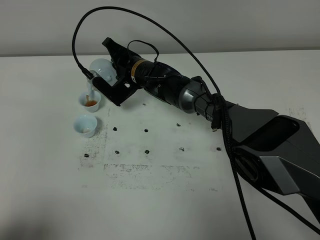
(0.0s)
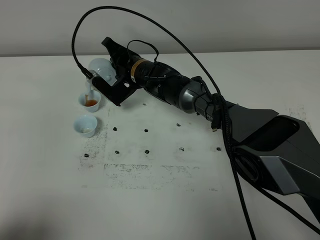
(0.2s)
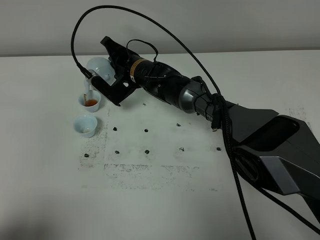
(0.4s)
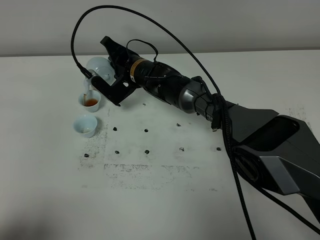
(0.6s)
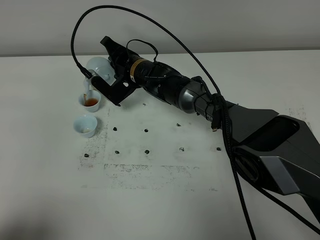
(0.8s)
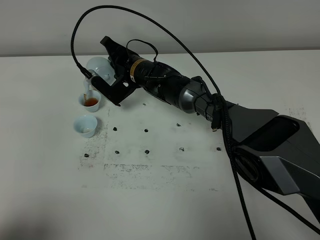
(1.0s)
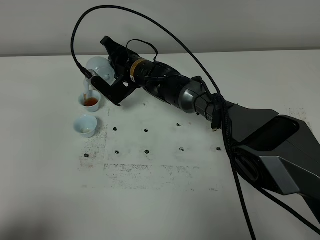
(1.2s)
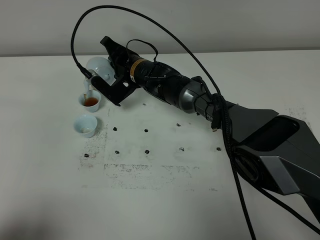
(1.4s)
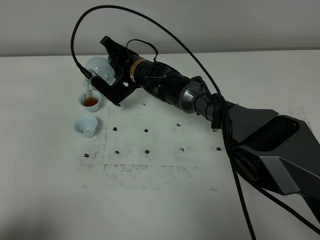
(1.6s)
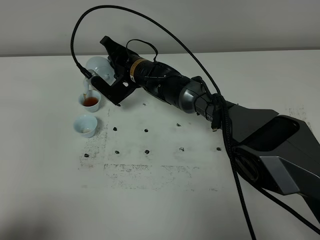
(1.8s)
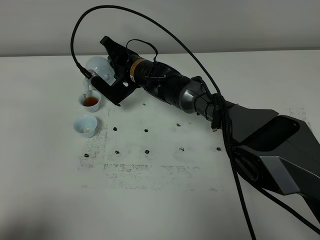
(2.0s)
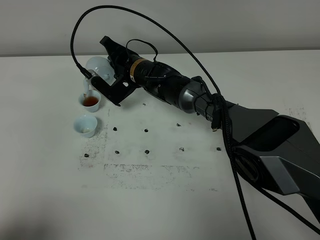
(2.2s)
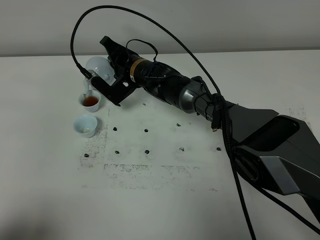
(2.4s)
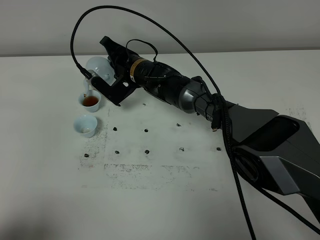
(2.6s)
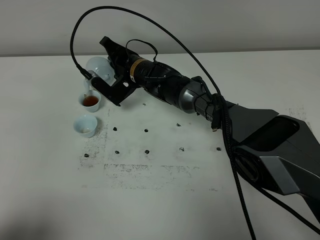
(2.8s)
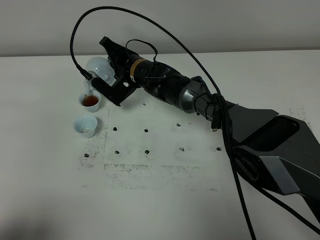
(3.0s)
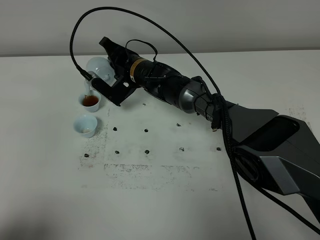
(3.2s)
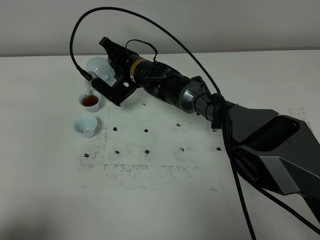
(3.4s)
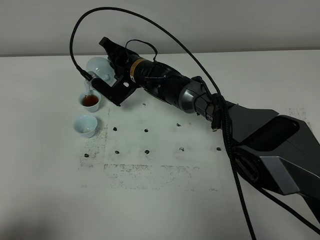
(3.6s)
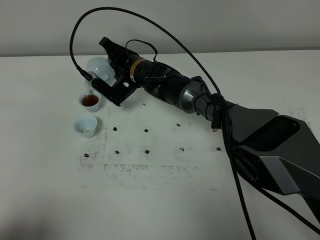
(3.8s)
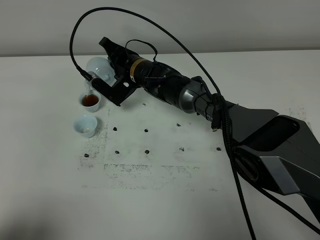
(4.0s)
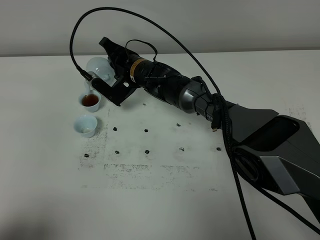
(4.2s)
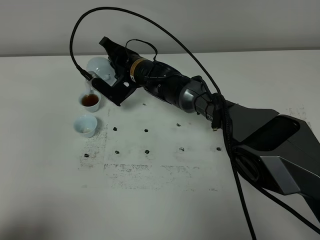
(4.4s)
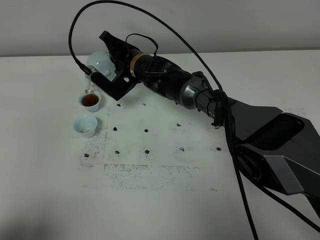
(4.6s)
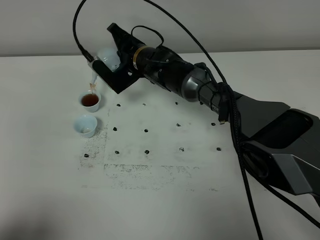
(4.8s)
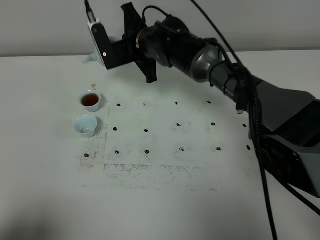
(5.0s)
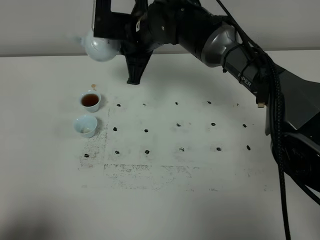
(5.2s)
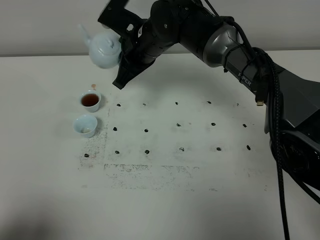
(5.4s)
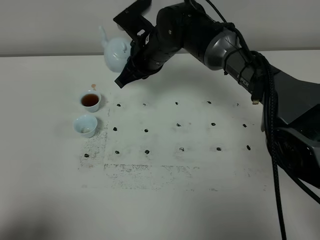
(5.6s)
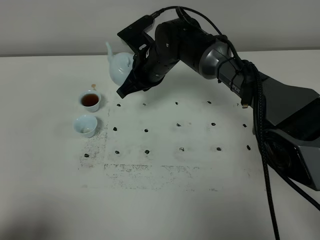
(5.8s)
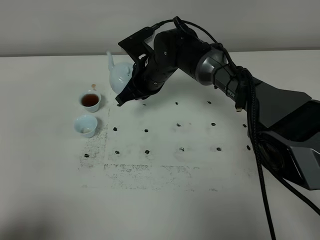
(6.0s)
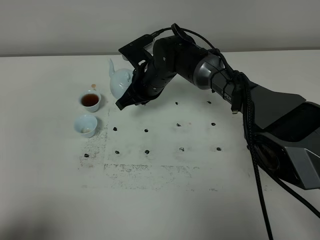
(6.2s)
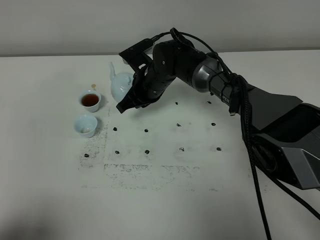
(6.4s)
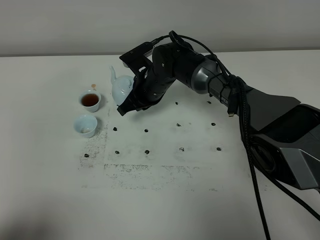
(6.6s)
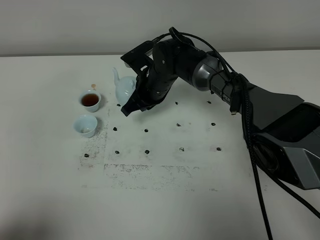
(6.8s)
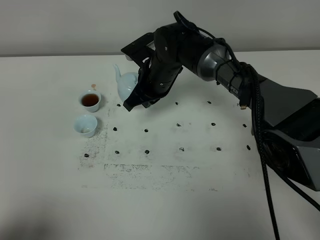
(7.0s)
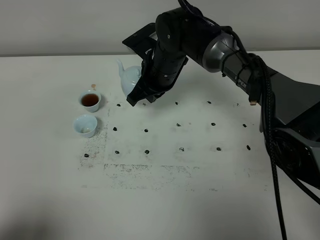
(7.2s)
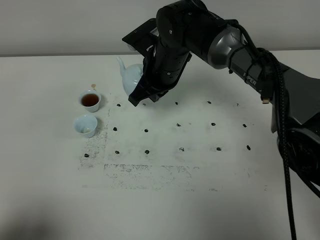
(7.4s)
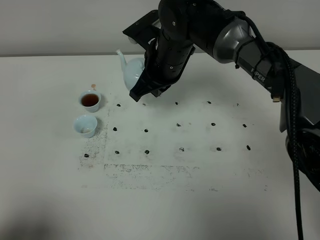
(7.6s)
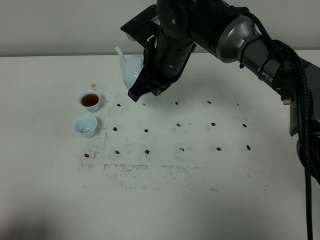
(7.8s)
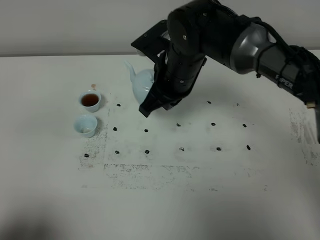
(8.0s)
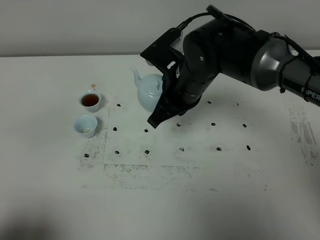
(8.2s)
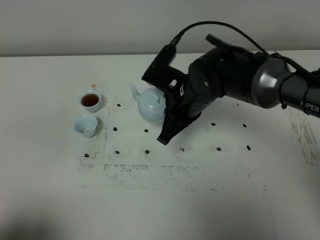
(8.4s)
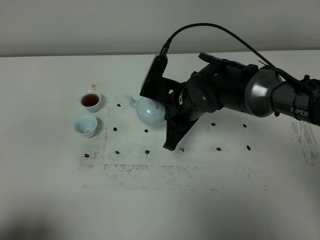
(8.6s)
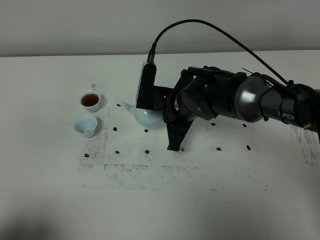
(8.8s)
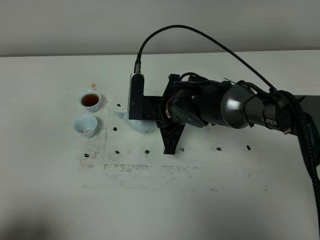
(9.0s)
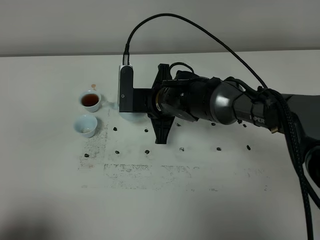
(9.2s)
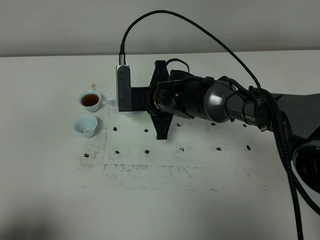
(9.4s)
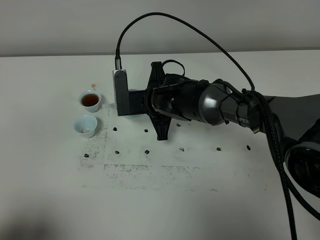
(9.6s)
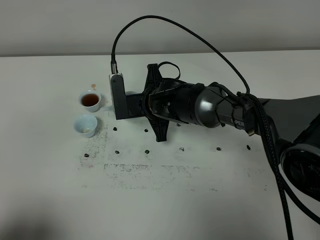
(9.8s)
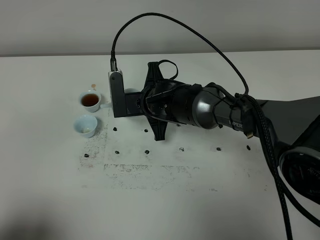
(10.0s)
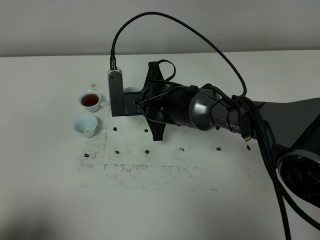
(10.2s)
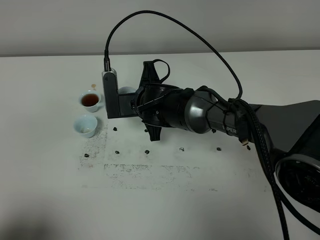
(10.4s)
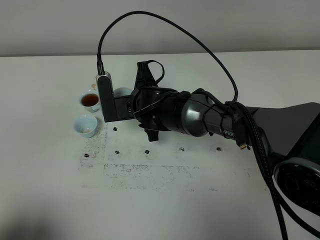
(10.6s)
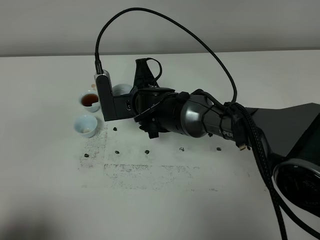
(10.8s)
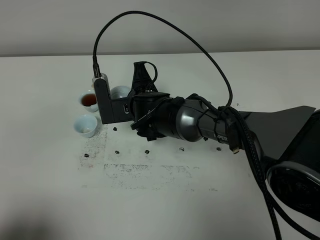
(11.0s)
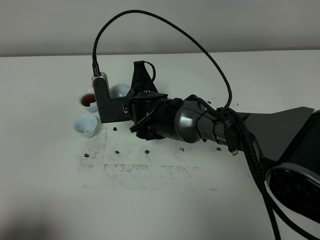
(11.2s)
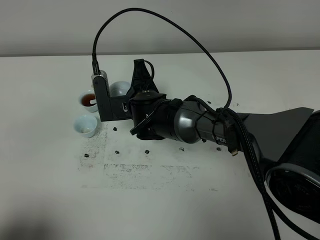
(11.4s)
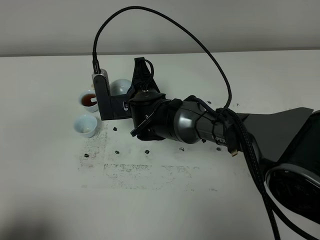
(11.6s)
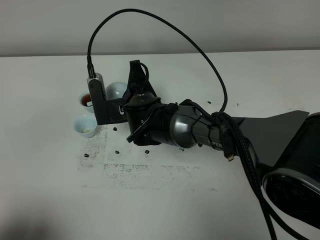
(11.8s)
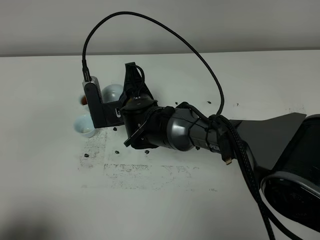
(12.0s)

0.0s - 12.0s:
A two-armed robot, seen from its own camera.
Task of the whole recording: grasp the blue porcelain teapot and pour the tea into the two blue porcelain teacups one by one, put the blue porcelain teapot back in its original place.
Step, 0.0s - 4.8s: Pour tea into the teacup with the right gripper.
0.0s - 4.4s: Both grippers stay about where they are.
4.4s - 6.0s: The right gripper goes upward and returns, roughly 15 cm each way.
6.0s - 7.6s: The right gripper shifts some 10 cm upward and backward.
7.6s - 9.0s: The right gripper heads downward, covering about 10 cm.
9.0s - 10.4s: The grippers stay close to where they were, moving slightly.

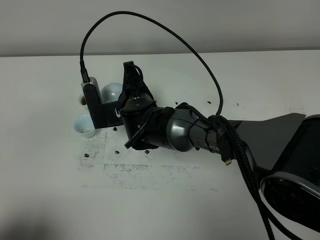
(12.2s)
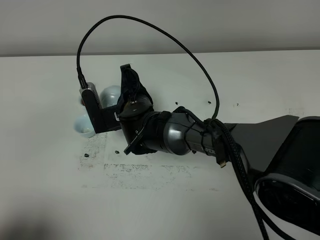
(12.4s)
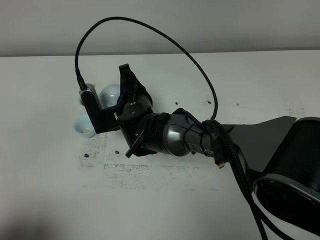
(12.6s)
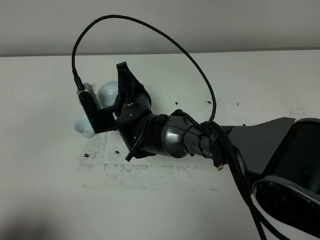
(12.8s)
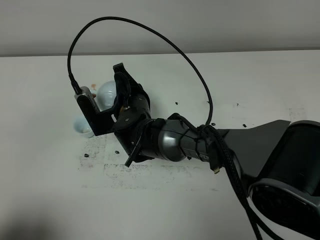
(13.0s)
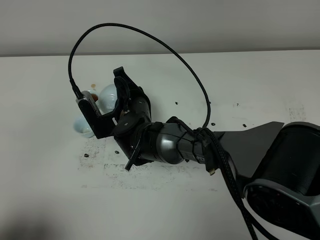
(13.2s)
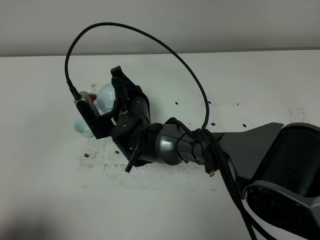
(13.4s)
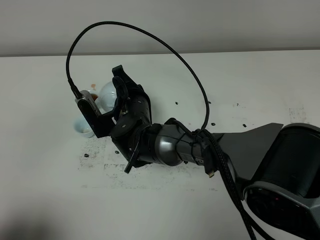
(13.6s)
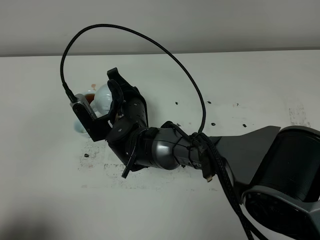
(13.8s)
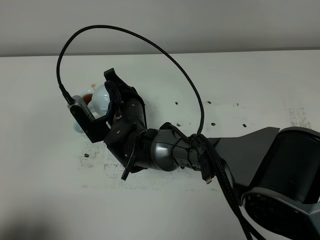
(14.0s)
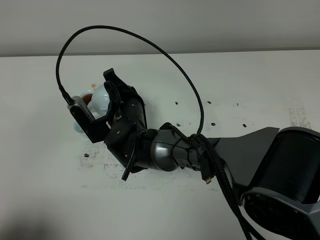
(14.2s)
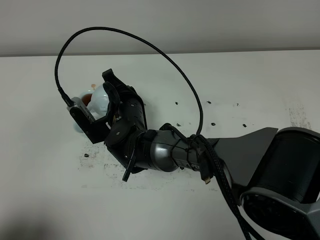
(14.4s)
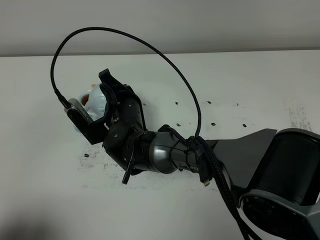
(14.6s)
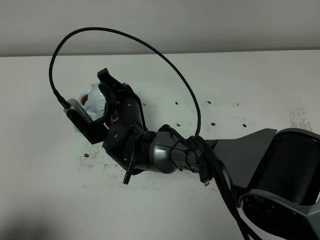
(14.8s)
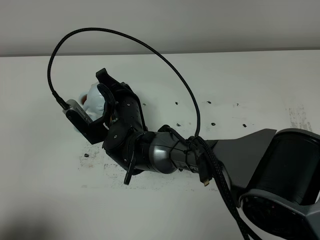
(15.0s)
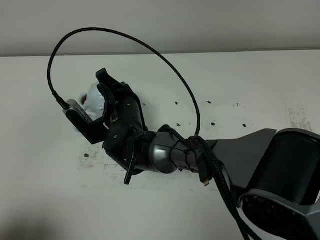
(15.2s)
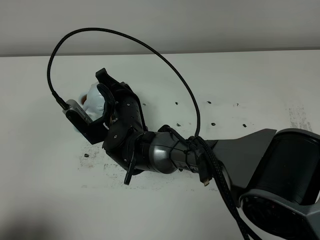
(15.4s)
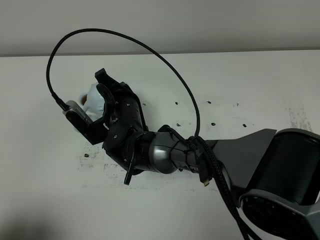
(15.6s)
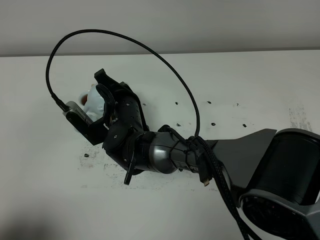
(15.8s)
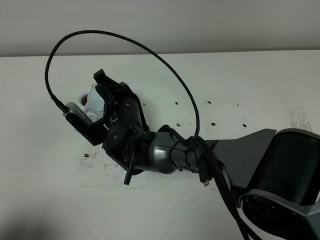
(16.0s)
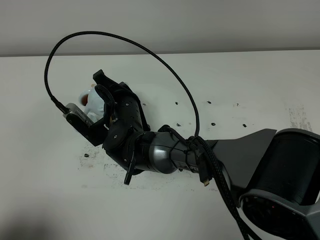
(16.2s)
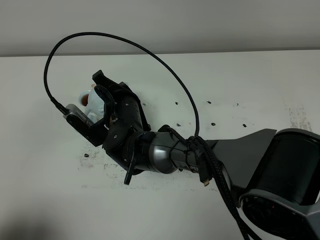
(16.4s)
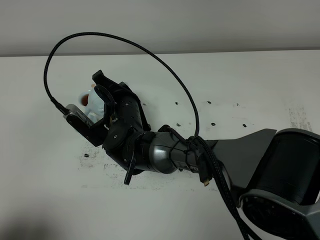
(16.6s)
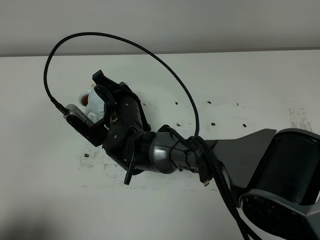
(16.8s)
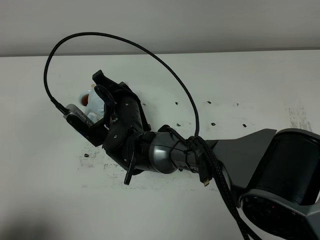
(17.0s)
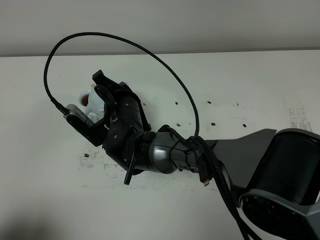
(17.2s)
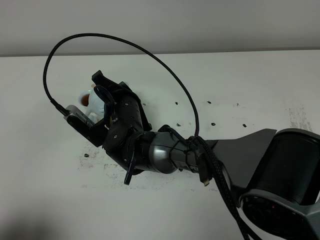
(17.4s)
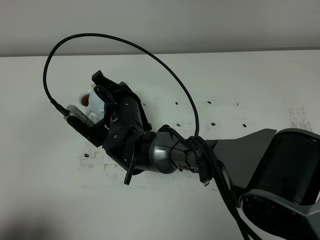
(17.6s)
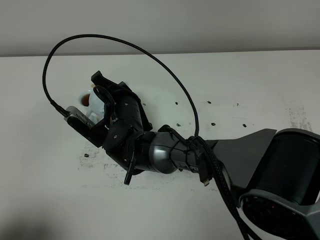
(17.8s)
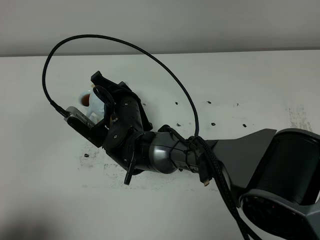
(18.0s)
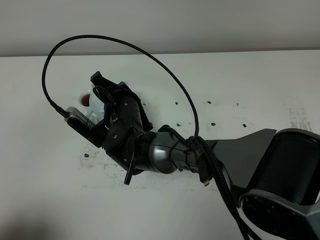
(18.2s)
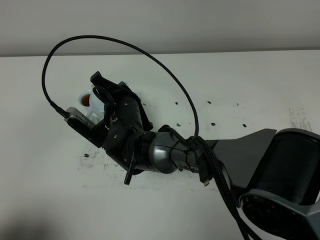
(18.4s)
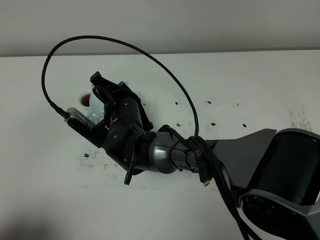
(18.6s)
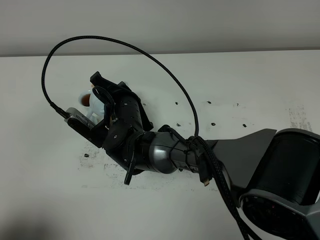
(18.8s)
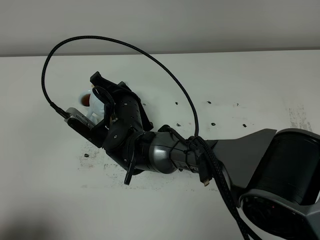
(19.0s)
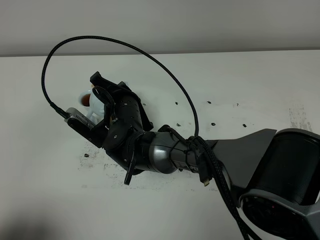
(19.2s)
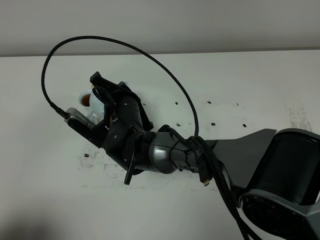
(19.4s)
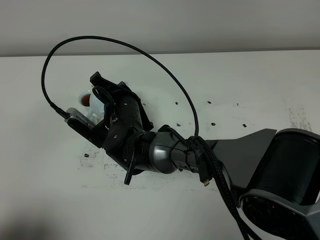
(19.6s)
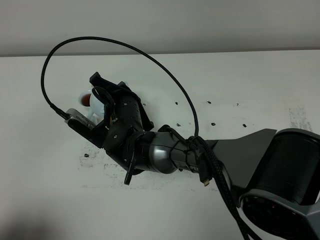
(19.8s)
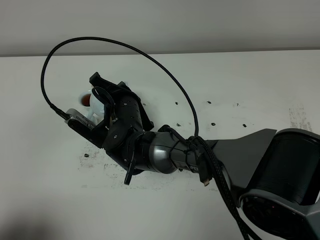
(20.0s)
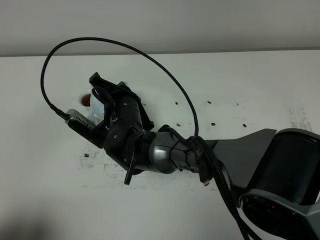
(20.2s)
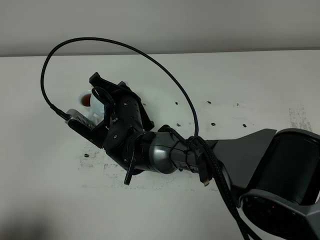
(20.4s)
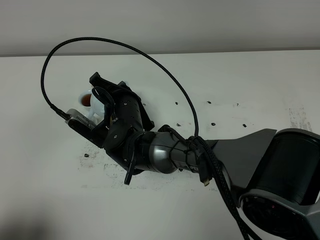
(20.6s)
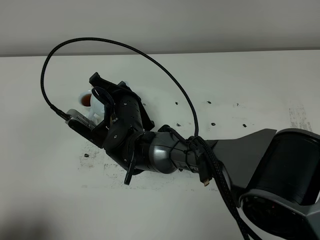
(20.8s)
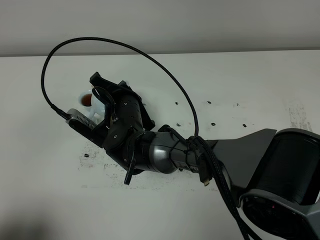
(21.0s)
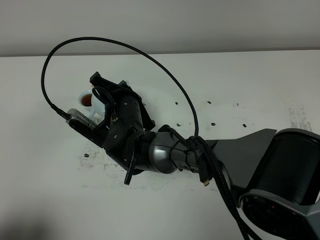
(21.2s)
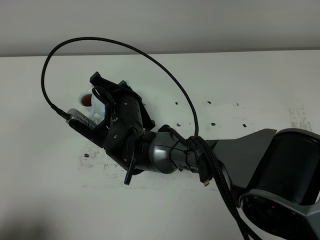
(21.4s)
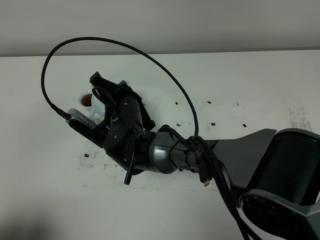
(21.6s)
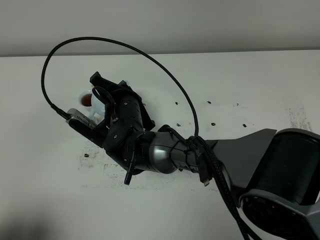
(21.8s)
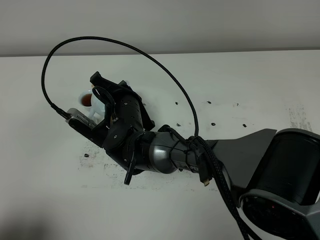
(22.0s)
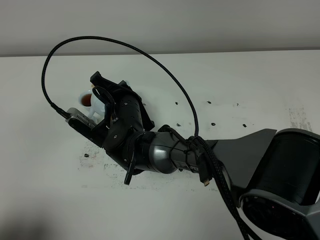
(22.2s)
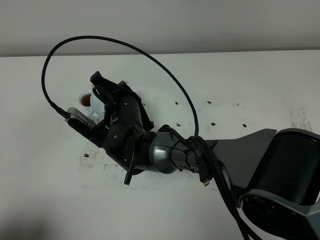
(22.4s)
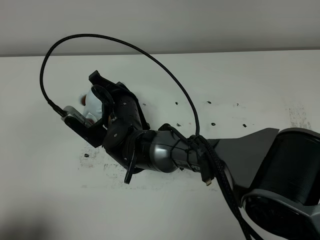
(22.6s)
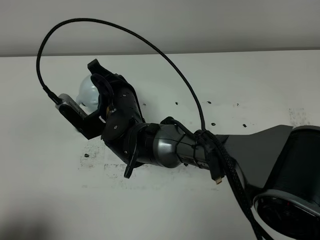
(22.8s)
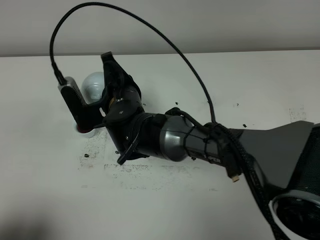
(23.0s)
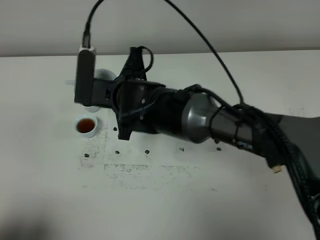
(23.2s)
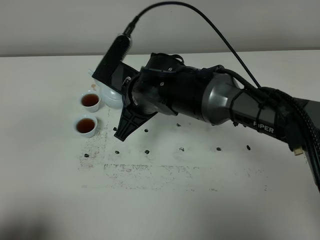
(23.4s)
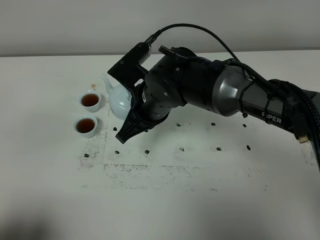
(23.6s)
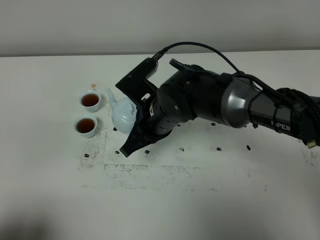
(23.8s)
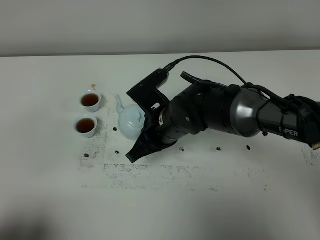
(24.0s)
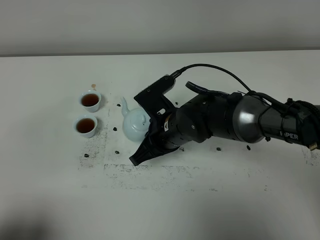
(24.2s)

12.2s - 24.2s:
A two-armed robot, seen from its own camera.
Task of the whole recording: grasp the blue porcelain teapot and pour the tea into the two blue porcelain teacups one by one, put the blue porcelain teapot back in its original place.
Step, 12.2s - 23.0s: Pour tea into the teacup with the right gripper.
13.8s - 16.6s: There are only small adjustments of the grippers.
16.6s - 18.2s: The two grippers keep their place.
18.2s - 21.2s: Both grippers stay put.
21.2s - 22.6s: The grippers stay close to where they were, moving slightly.
22.6s - 24.2s: The right gripper goes approximately 10 cm to the right.
